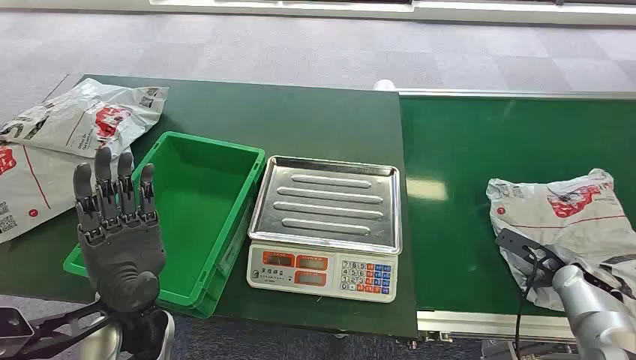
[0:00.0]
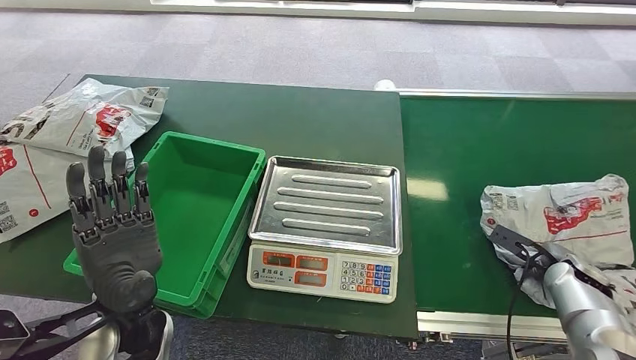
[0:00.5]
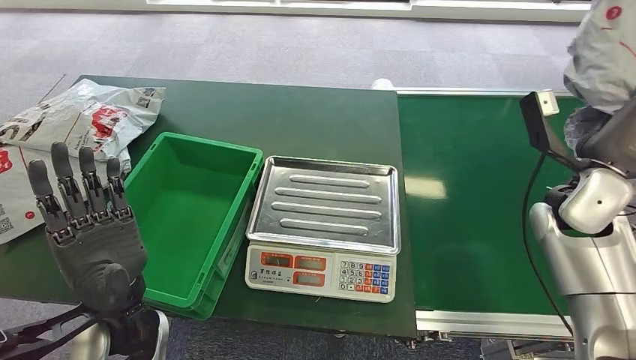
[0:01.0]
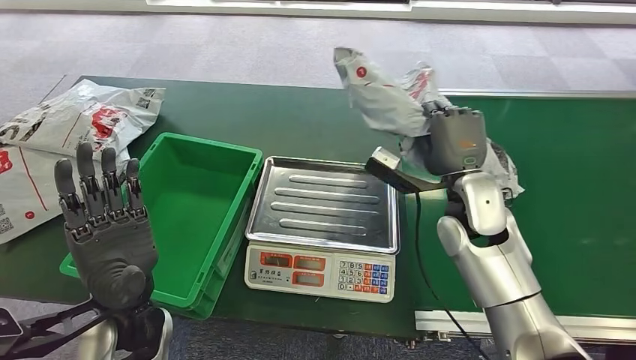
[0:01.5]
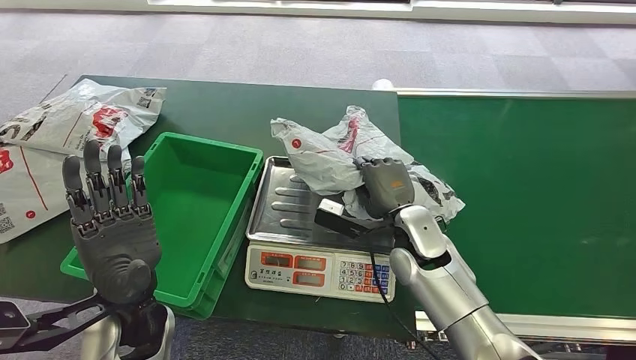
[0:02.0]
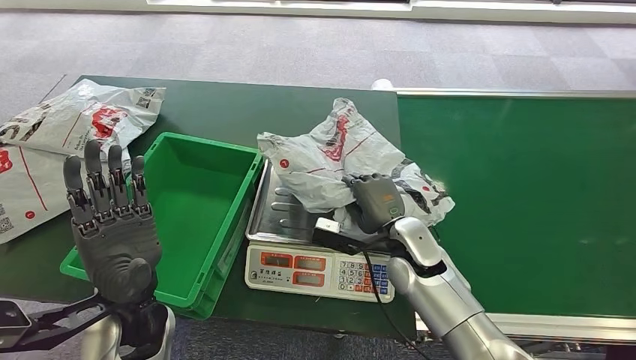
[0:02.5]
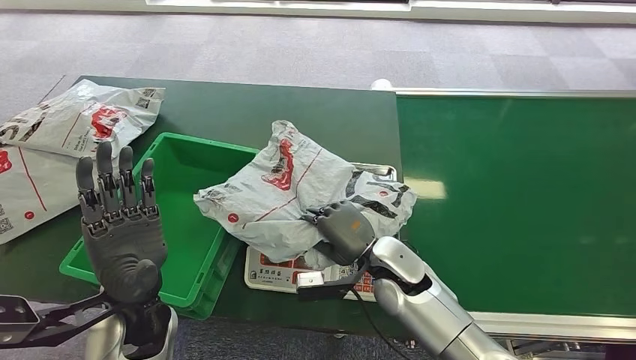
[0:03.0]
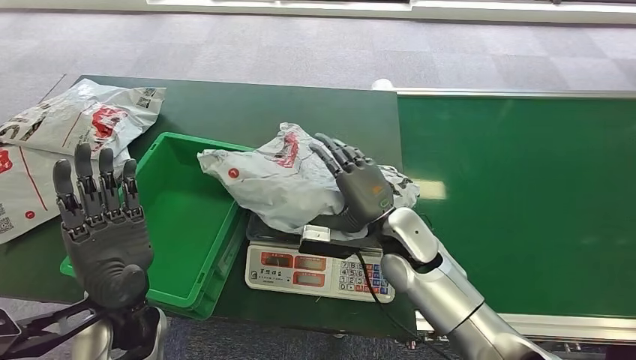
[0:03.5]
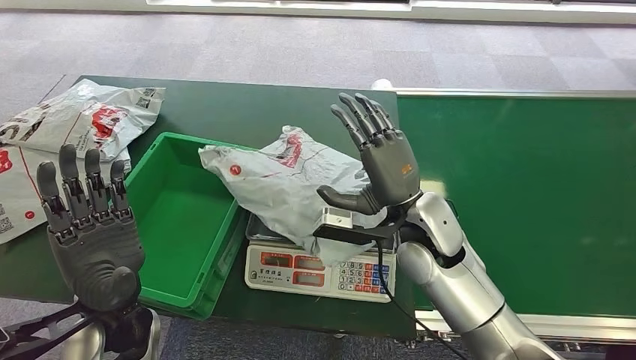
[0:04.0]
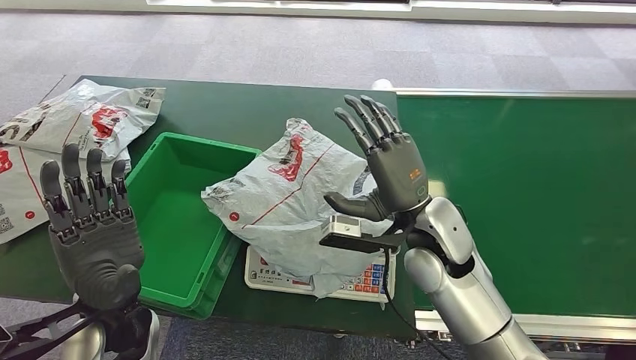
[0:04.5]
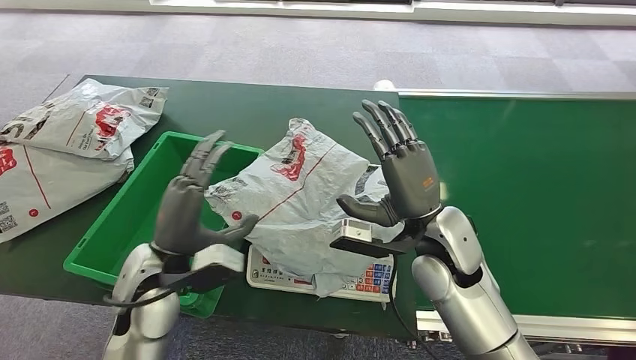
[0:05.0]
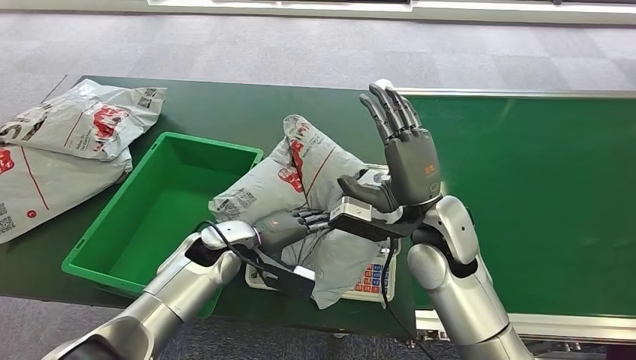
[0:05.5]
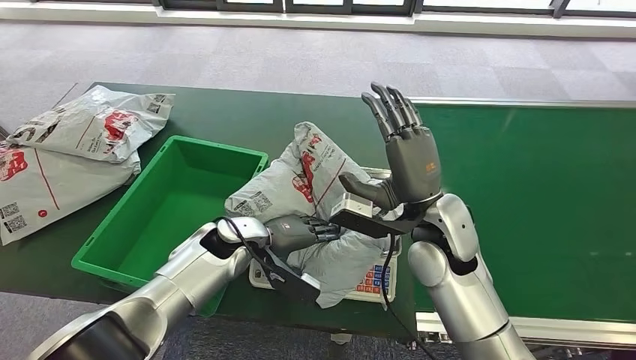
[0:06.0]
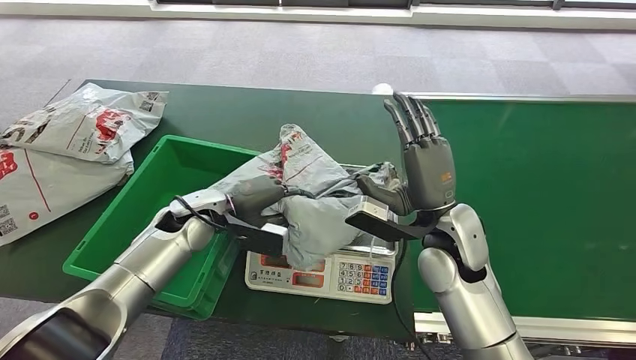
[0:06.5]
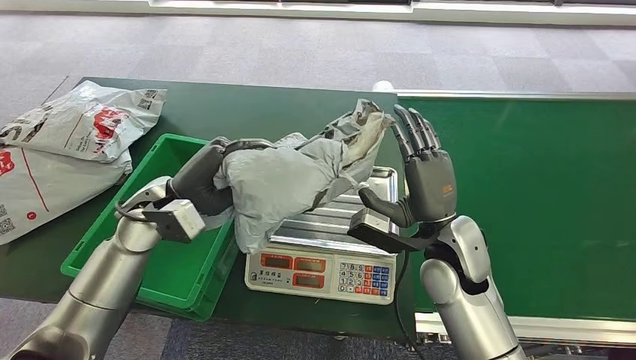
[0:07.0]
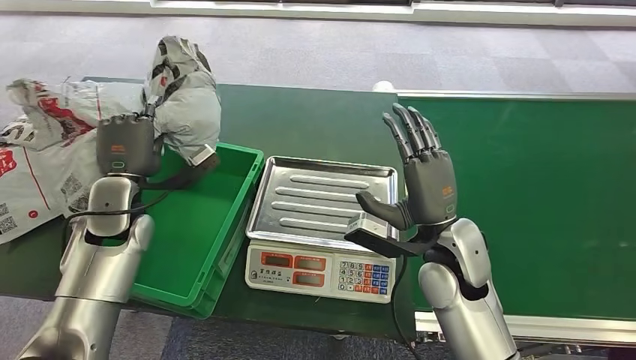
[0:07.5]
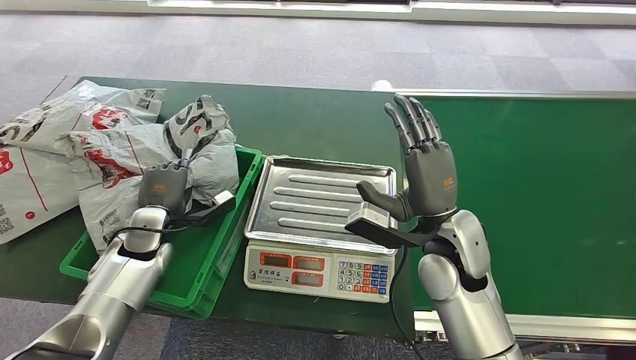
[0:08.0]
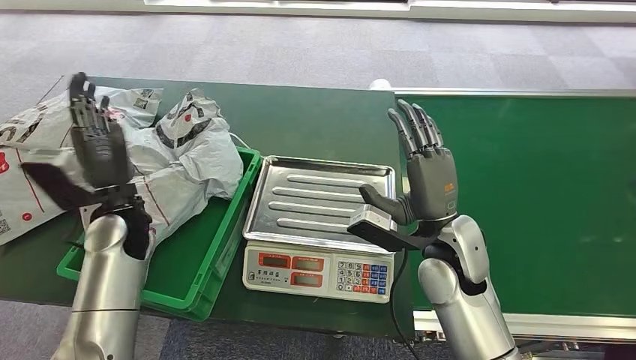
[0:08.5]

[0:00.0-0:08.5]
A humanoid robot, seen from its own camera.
Task of the whole recording: Weigh the package on the weighing device and place it in the left basket.
Step, 0:00.0 to 0:00.5: Pick up the package from the conveyor belt.
Step, 0:01.5 to 0:04.0: Place the package onto the inbound machine.
Step, 0:06.0 to 0:07.0: Pick up the package from the inbound machine.
Step, 0:07.5 to 0:08.5: Place the package into the parcel locker.
0:02.0 to 0:04.0: The right hand travels upward by about 5 cm.

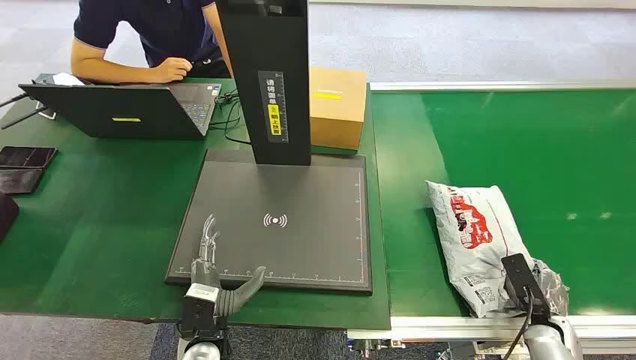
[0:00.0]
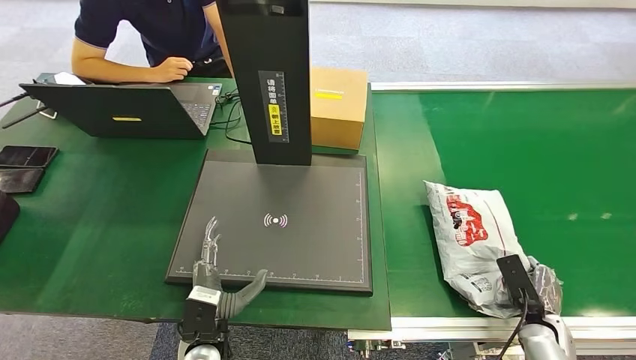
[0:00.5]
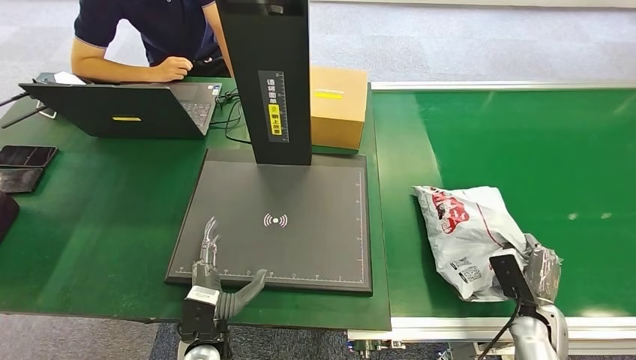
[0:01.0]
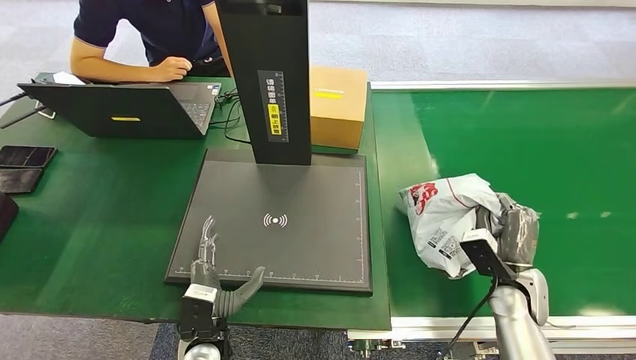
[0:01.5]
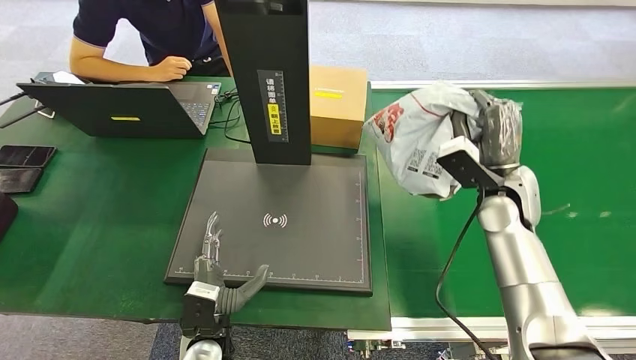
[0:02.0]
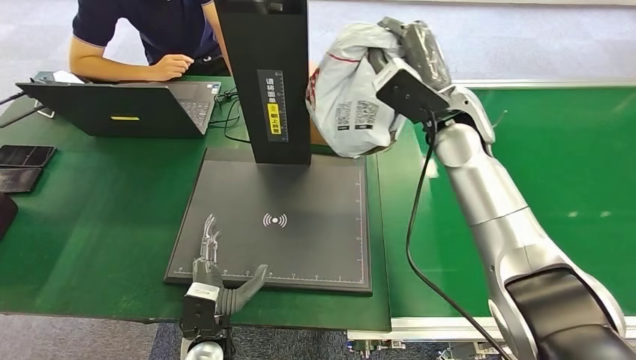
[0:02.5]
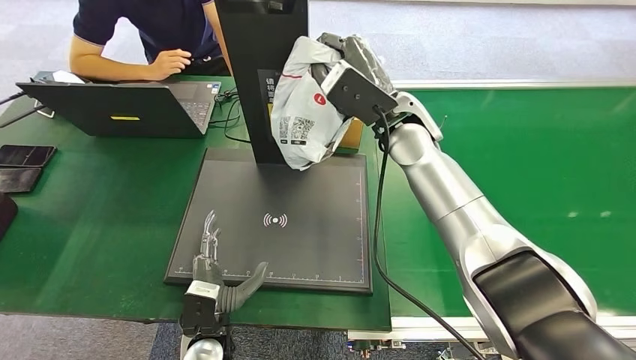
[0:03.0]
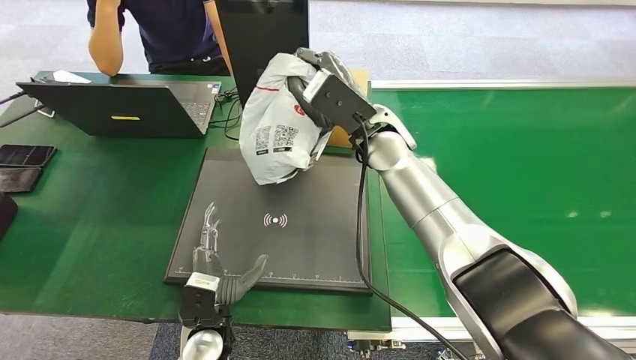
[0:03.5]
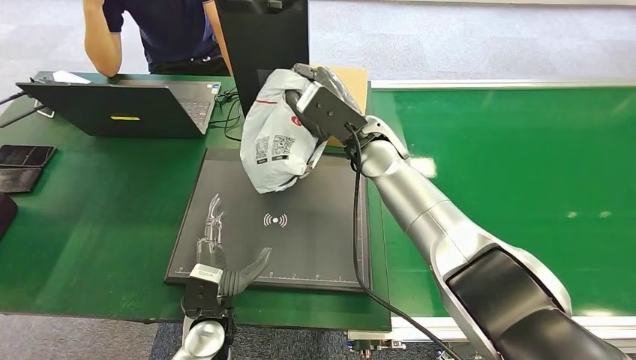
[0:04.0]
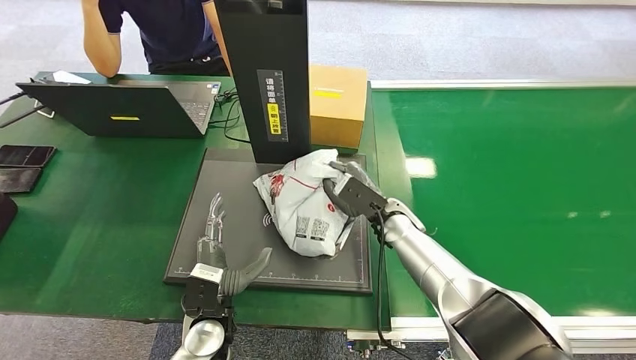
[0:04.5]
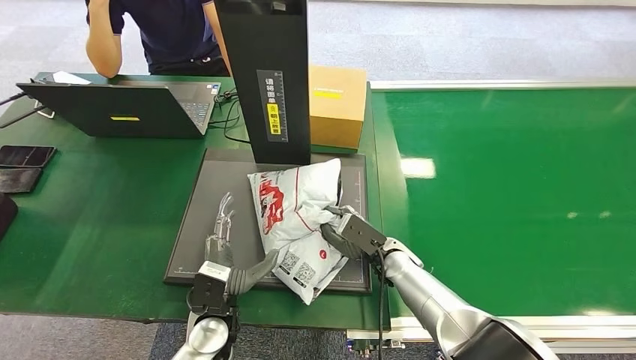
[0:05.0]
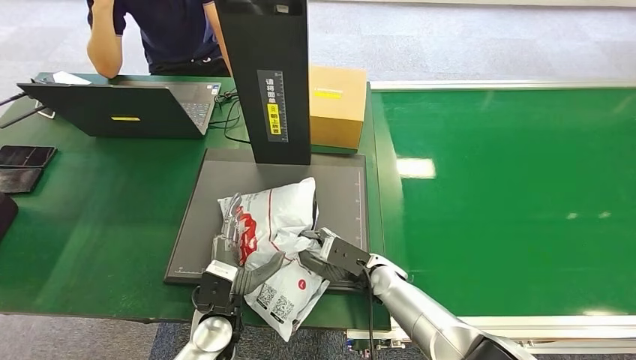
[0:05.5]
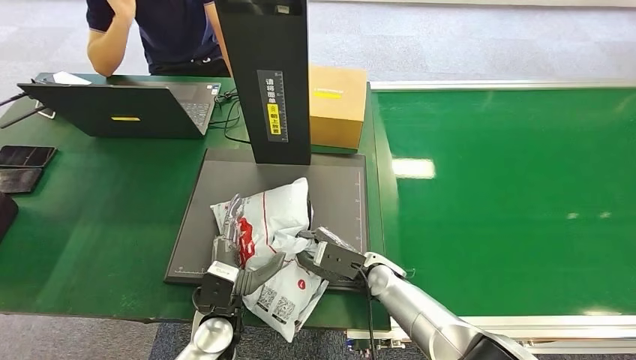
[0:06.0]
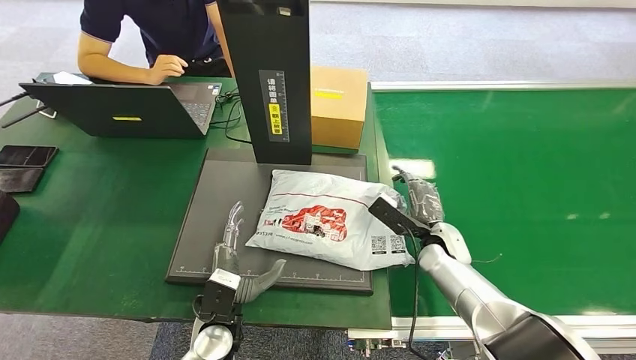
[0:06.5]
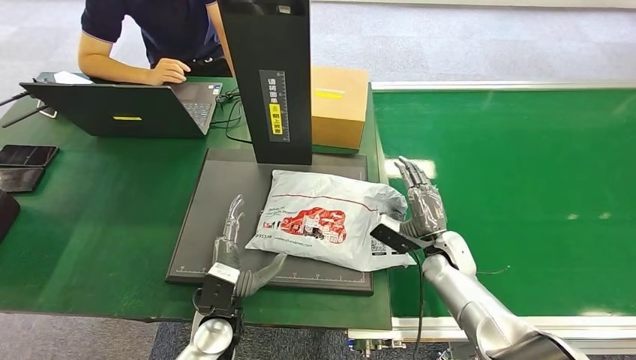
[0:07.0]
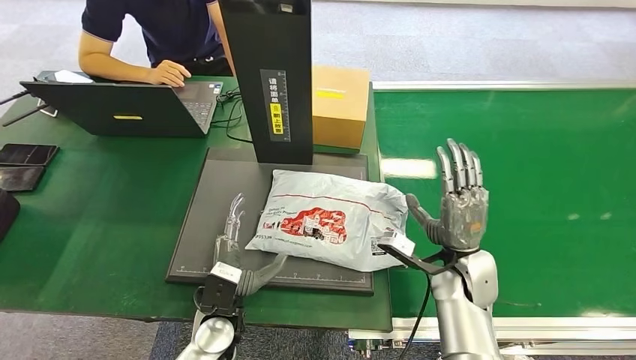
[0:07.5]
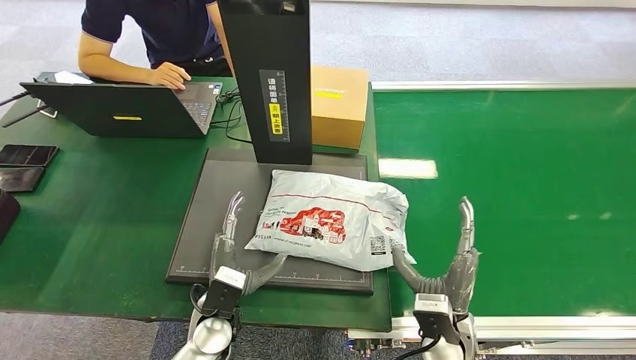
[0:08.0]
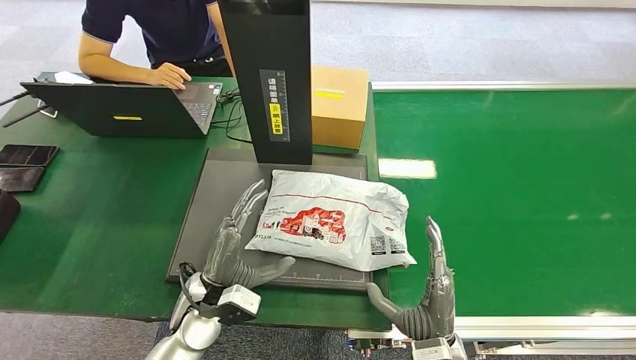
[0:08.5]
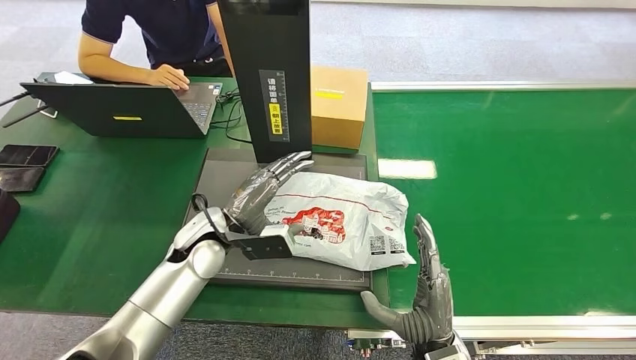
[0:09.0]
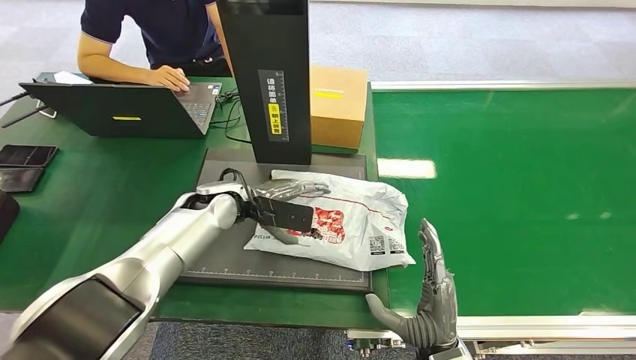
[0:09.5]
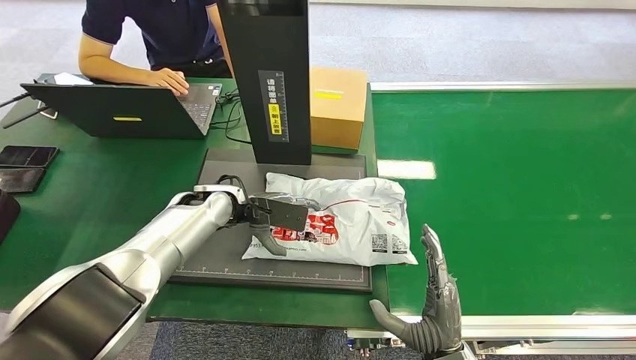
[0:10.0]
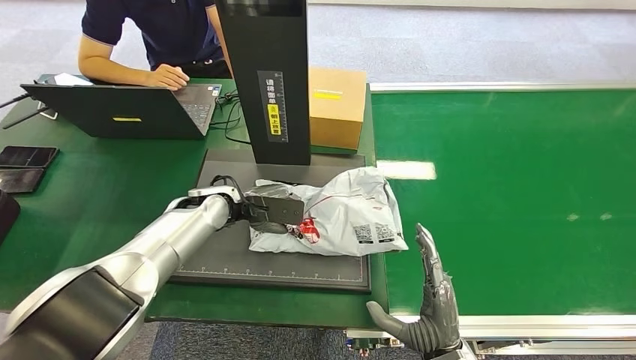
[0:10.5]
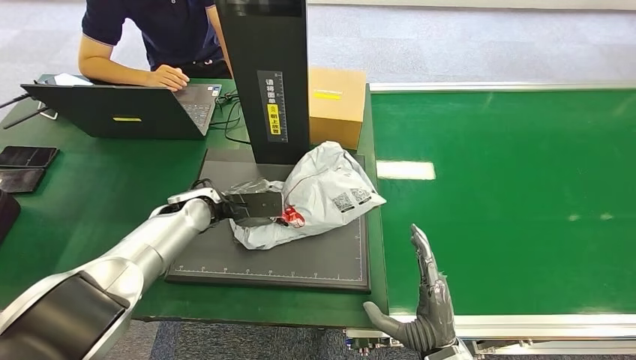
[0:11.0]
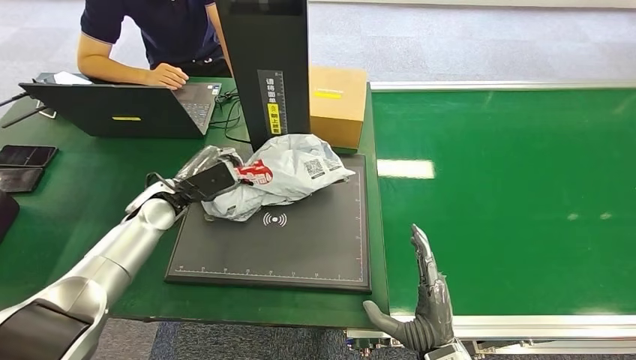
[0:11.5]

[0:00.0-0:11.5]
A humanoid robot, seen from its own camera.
Task of the whole recording: Weigh the package on the weighing device and place it in the left basket.
Step, 0:00.0 to 0:01.5: Pick up the package from the conveyor belt.
Step, 0:02.0 to 0:06.0: Place the package onto the inbound machine.
0:09.5 to 0:11.5: The left hand travels to the left by roughly 10 cm.
